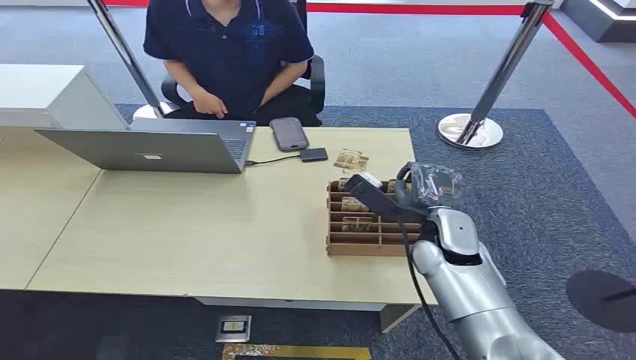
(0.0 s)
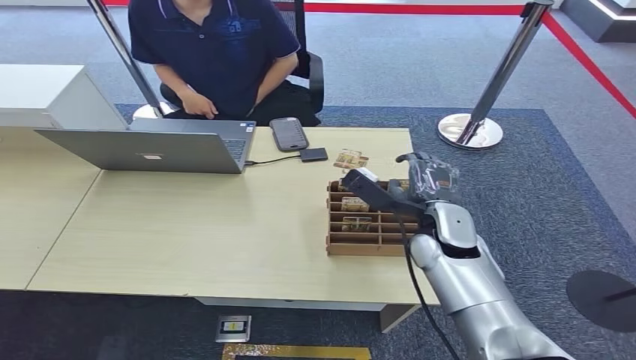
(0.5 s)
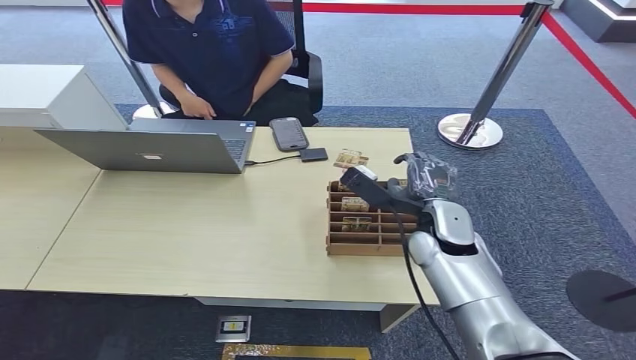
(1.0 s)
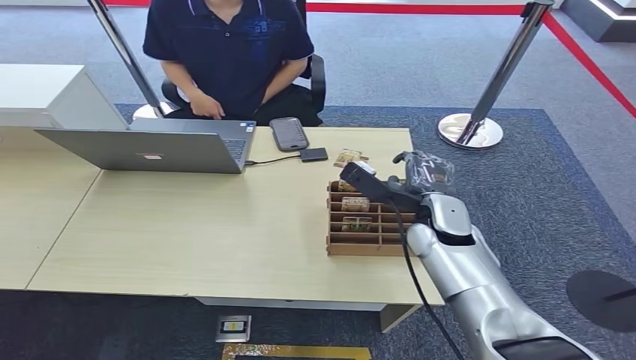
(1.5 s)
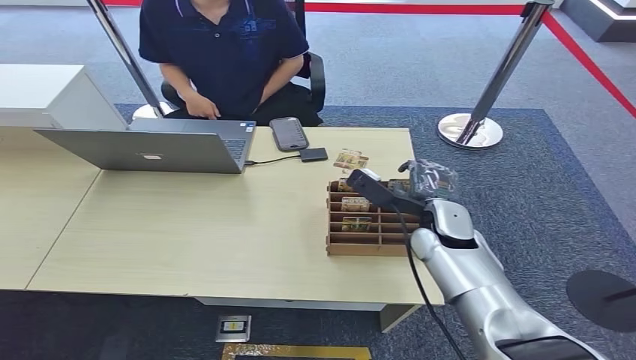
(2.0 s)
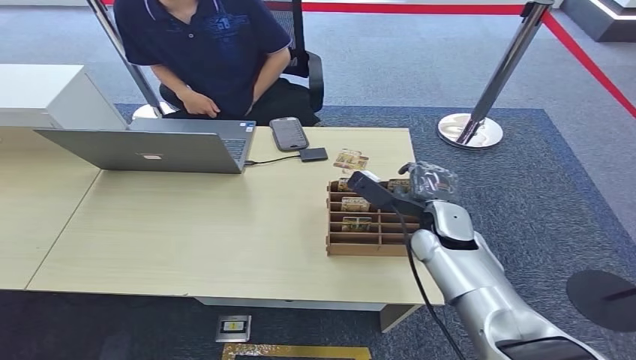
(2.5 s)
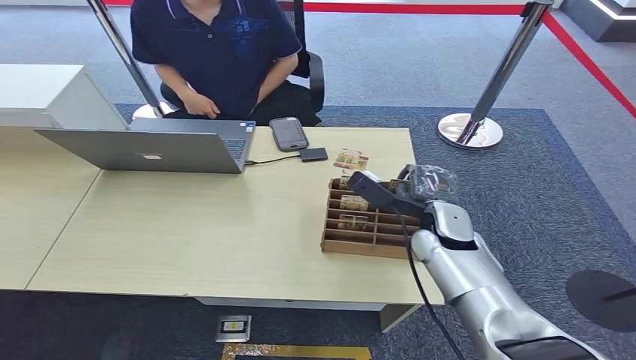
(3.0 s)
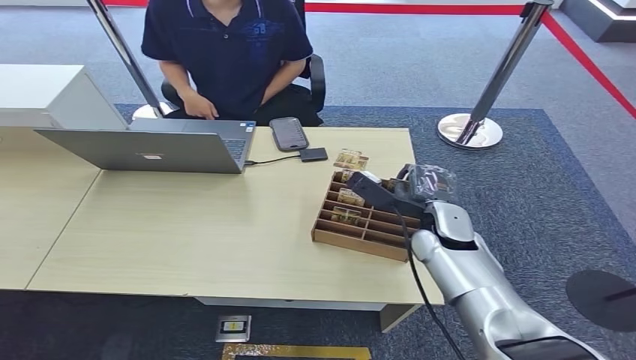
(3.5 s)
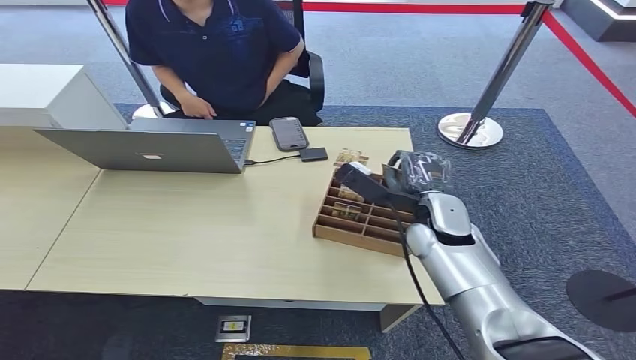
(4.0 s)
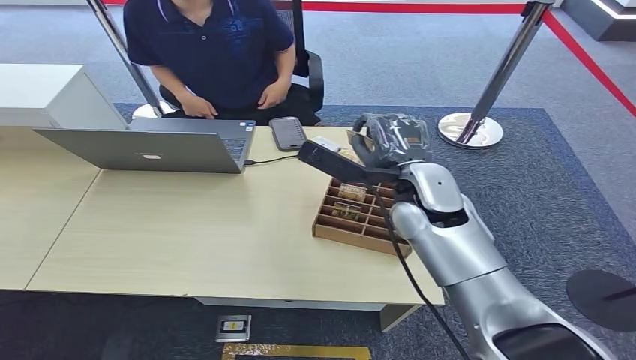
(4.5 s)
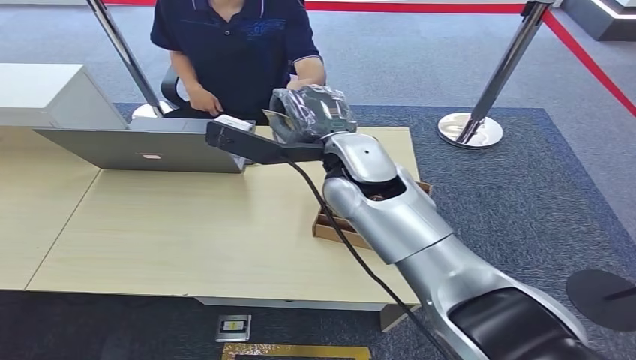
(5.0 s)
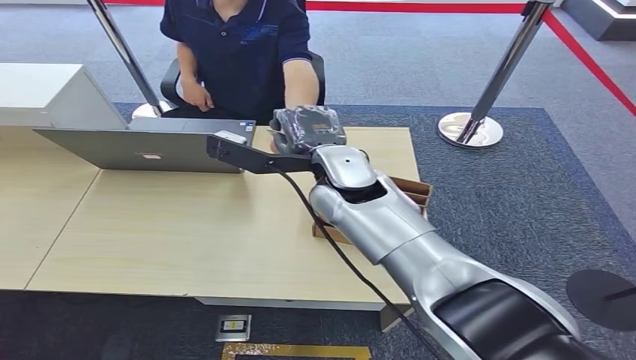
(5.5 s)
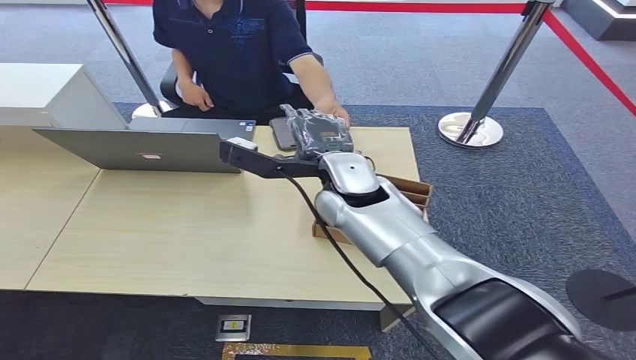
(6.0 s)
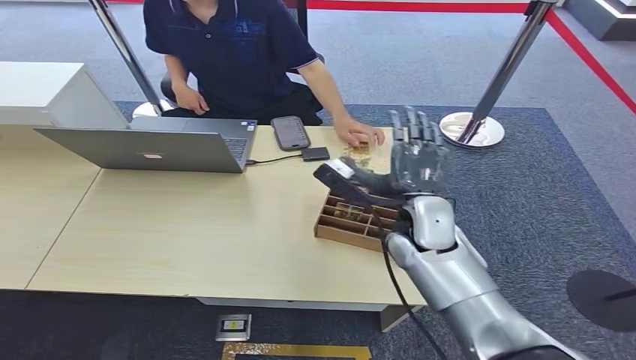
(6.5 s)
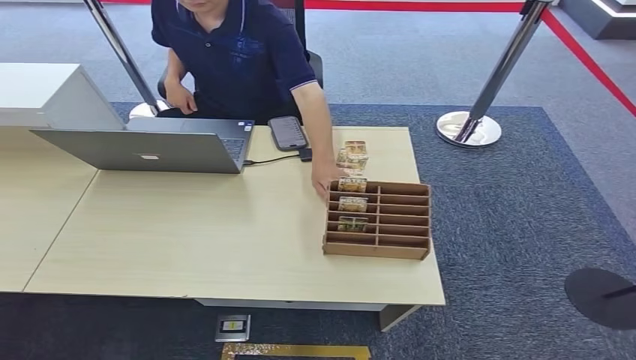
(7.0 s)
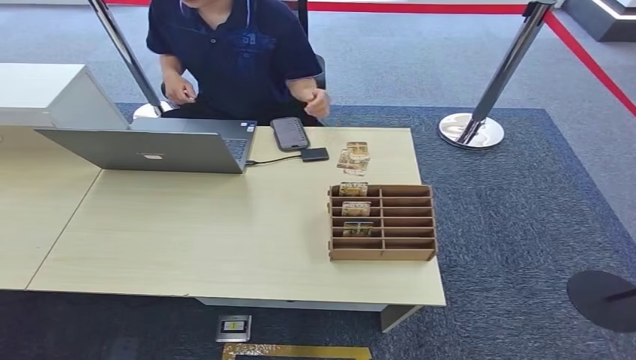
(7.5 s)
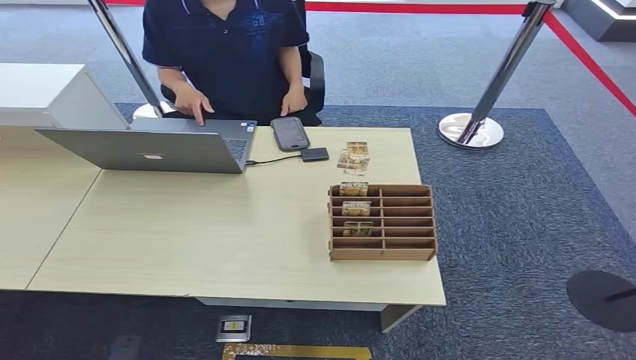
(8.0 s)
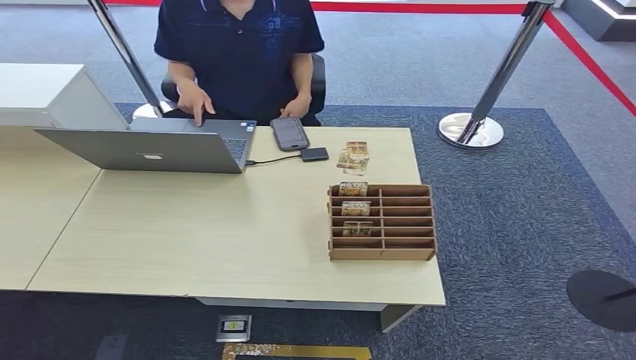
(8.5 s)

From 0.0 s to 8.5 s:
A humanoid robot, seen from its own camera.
Step, from 0.0 s to 4.0 s: Pick up the key card from the card box.
Step, from 4.5 s to 8.5 s: Hand the key card to the target.
From 2.0 s to 4.0 s: The hands make only small movements.
From 4.0 s to 6.5 s: The right hand reaches some 15 cm upward, then returns.
From 6.5 s to 8.5 s: The right hand goes some 40 cm backward and downward.
